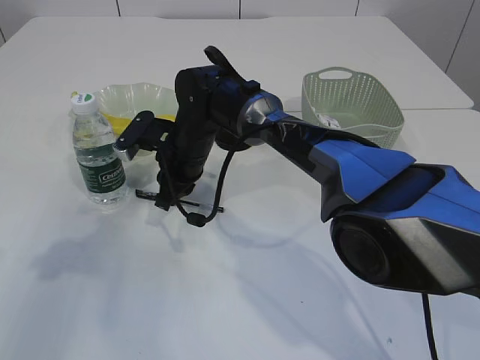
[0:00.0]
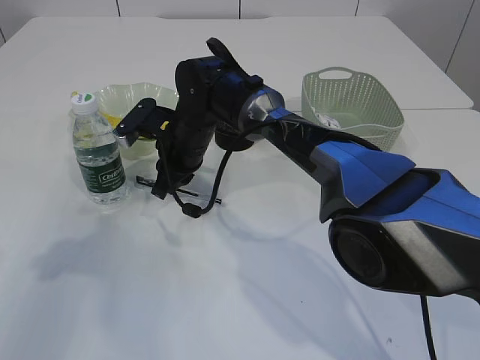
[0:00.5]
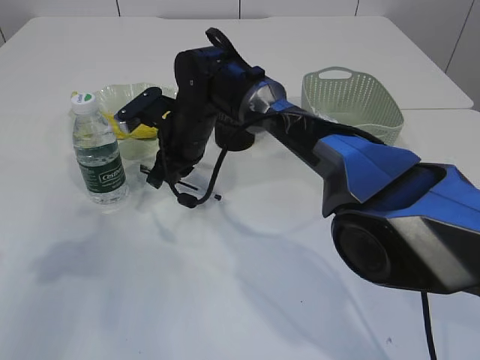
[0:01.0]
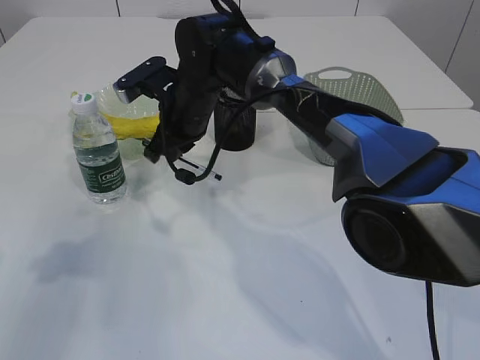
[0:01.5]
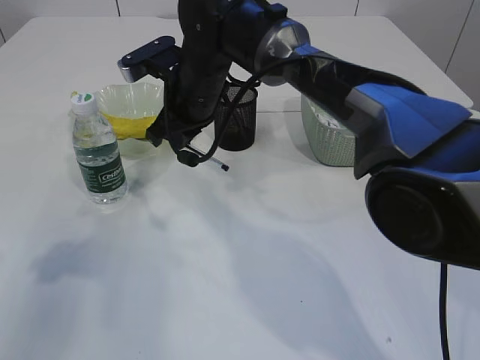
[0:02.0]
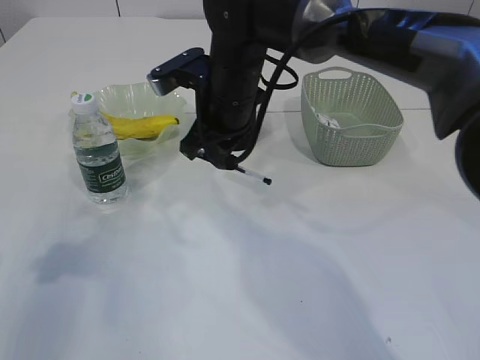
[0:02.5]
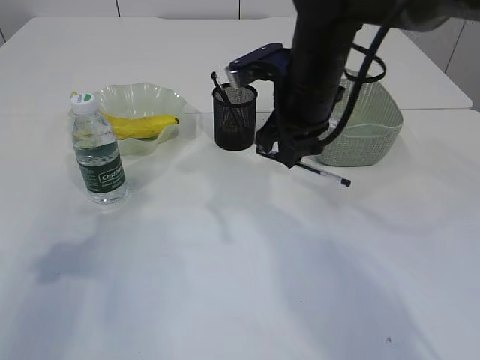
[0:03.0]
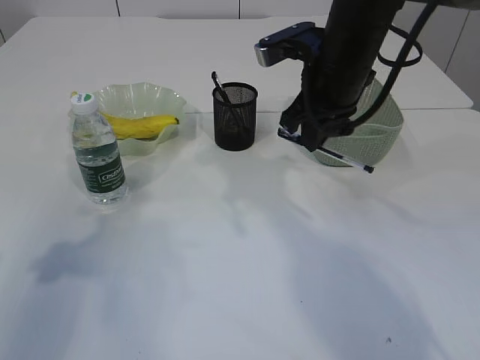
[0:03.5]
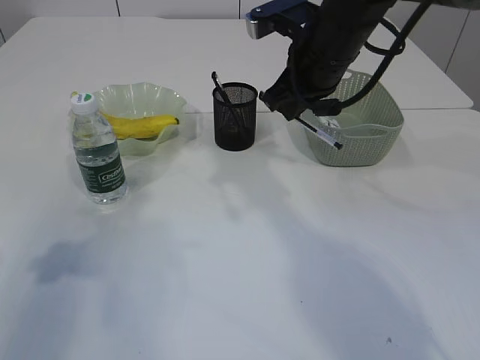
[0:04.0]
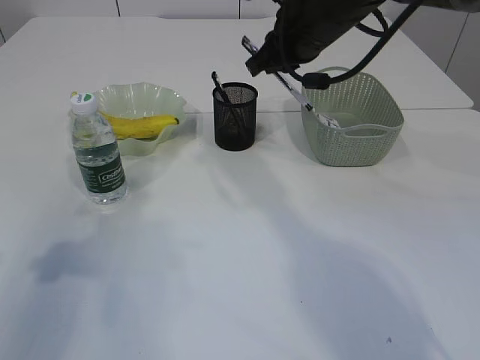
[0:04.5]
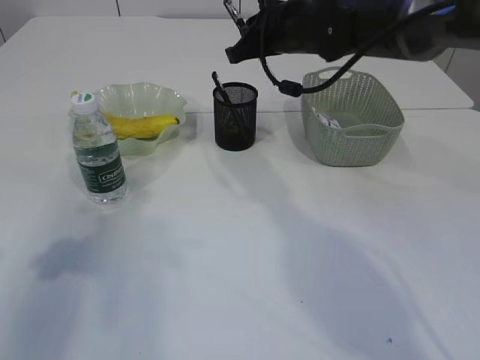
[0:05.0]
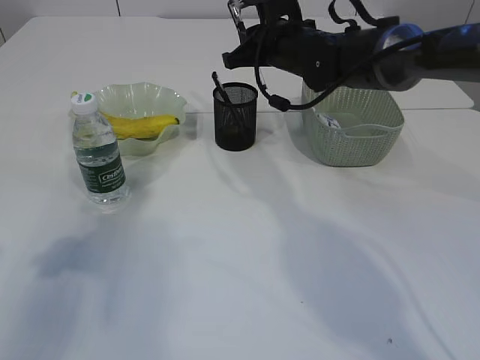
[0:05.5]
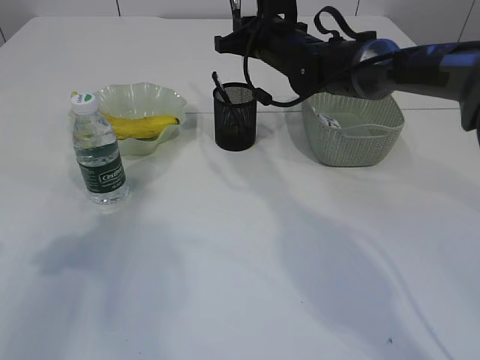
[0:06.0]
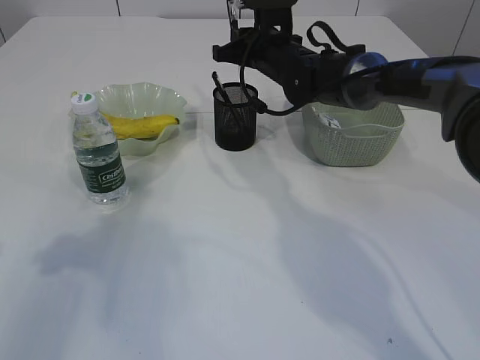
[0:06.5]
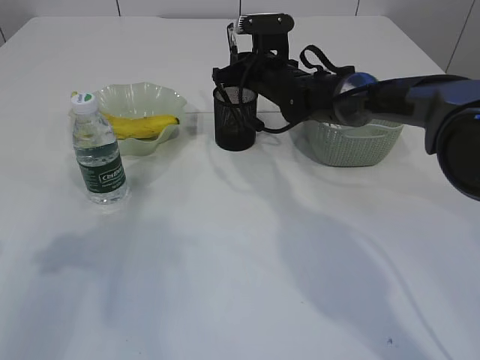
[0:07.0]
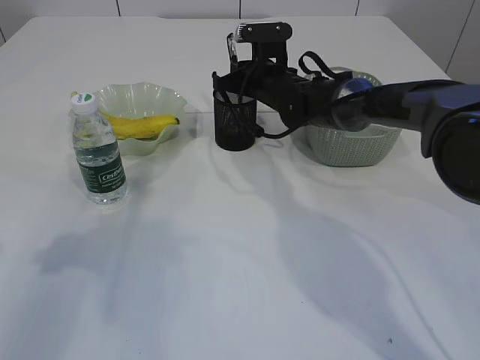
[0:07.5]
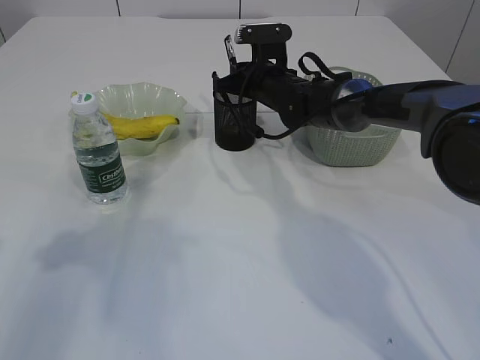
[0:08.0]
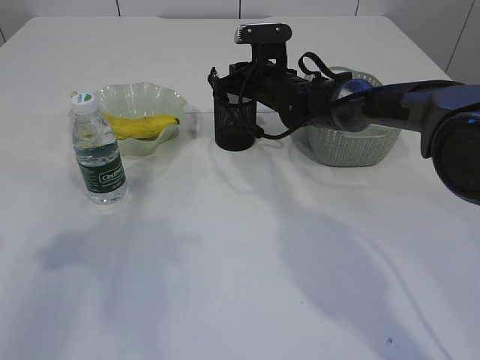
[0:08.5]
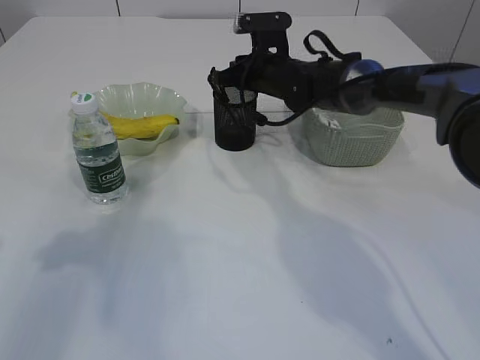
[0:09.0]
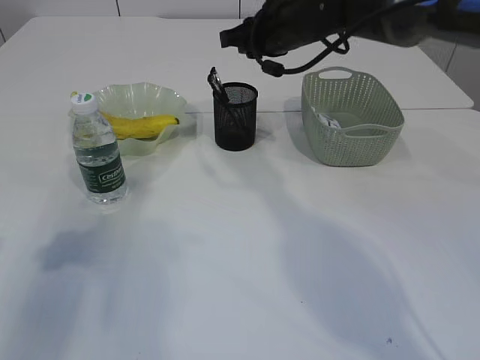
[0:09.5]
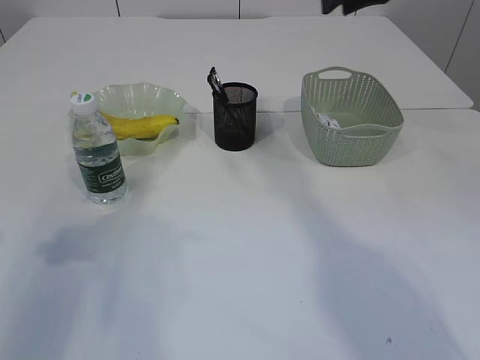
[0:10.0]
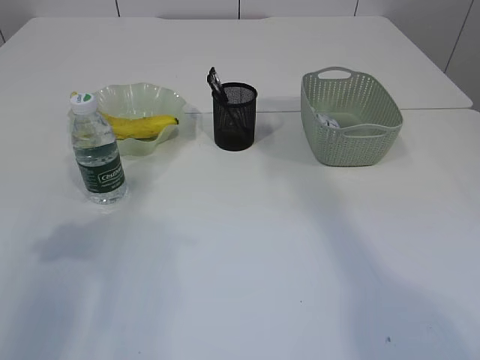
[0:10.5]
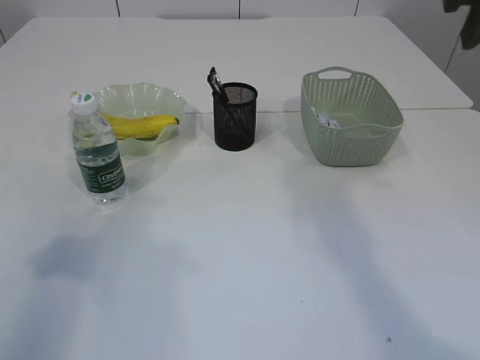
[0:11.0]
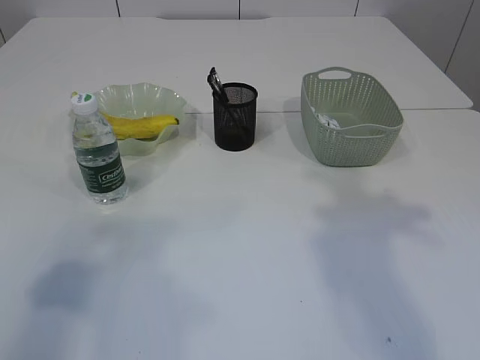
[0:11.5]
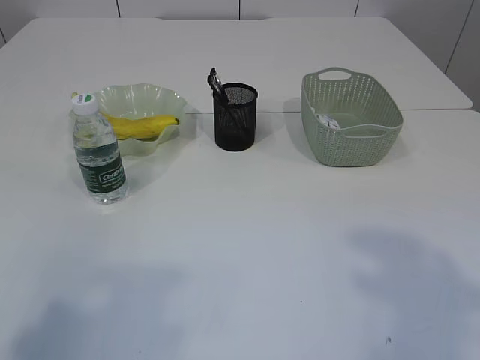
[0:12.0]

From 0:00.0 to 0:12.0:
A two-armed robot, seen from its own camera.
Step, from 0:01.5 to 0:09.0: Place the pen into the pen holder.
From 0:00.0 to 0:02.0: The right gripper is displaced upward by roughly 10 cm.
From 0:02.0 to 0:04.0: The right gripper goes some 15 cm to the right and upward.
From 0:04.0 to 0:06.0: The right gripper travels forward by about 10 cm.
From 0:06.0 to 0:08.0: The right gripper shifts approximately 5 cm downward.
From 0:08.0 to 0:10.0: The right gripper is displaced upward, backward and to the right by some 25 cm.
From 0:10.0 to 0:12.0: The left gripper goes some 20 cm backward and upward; the right gripper goes roughly 30 cm backward.

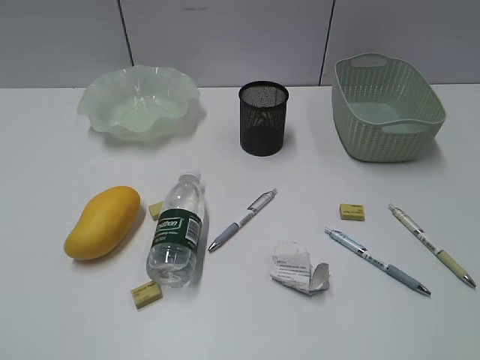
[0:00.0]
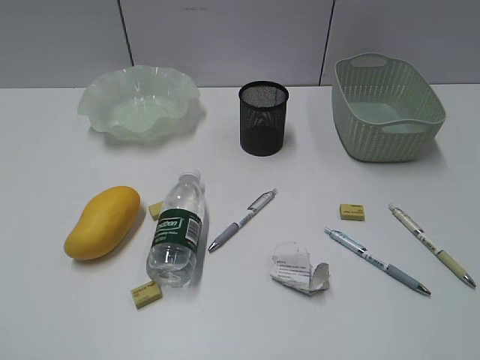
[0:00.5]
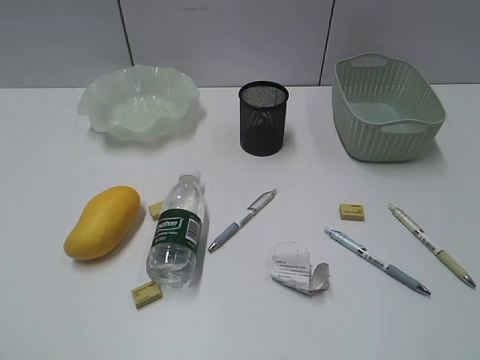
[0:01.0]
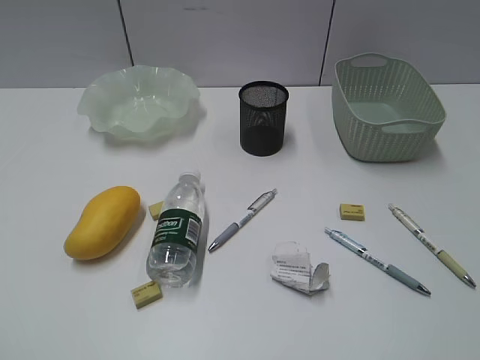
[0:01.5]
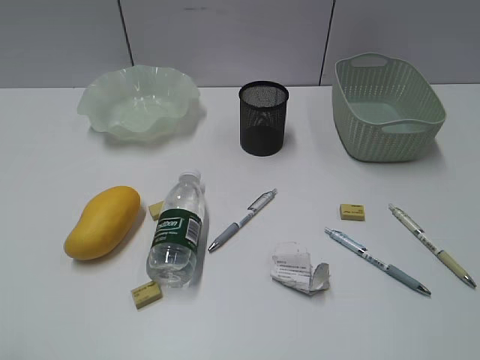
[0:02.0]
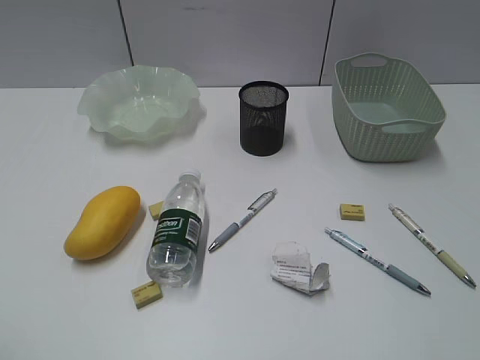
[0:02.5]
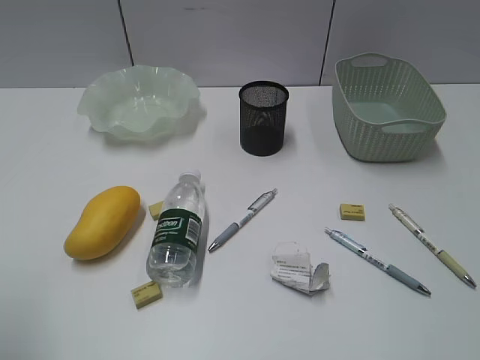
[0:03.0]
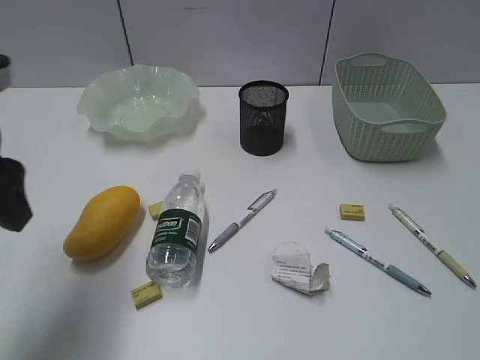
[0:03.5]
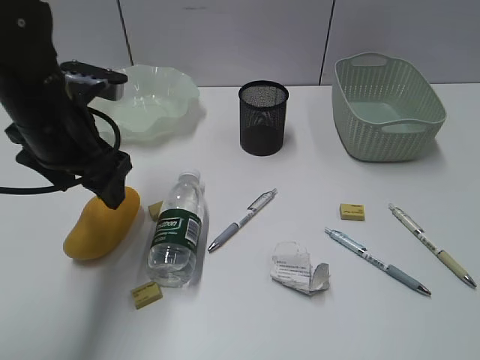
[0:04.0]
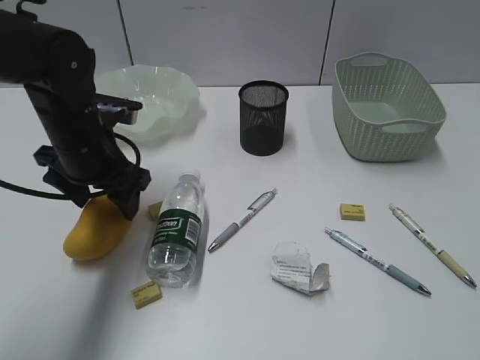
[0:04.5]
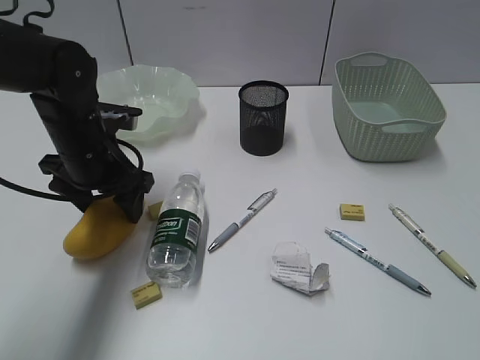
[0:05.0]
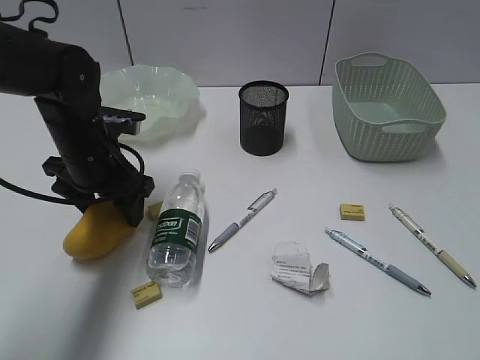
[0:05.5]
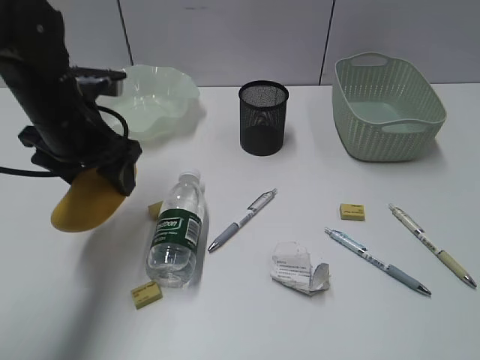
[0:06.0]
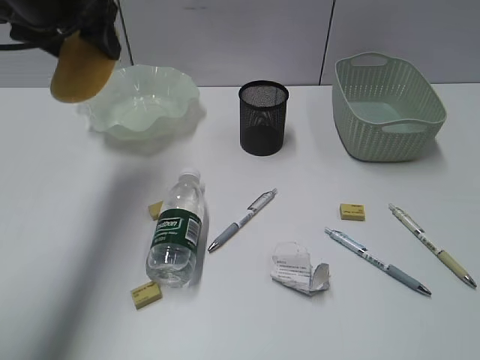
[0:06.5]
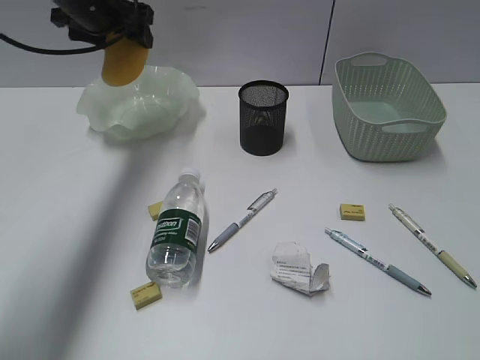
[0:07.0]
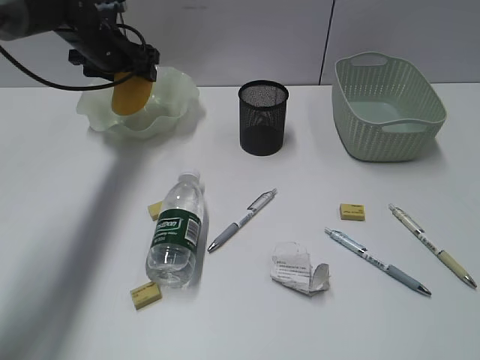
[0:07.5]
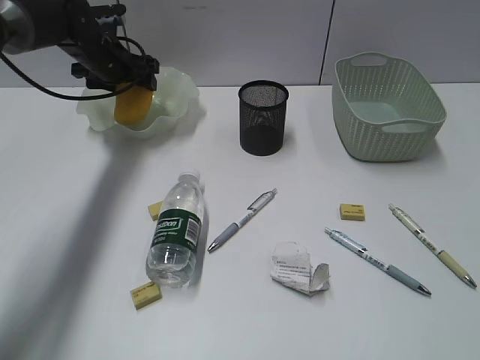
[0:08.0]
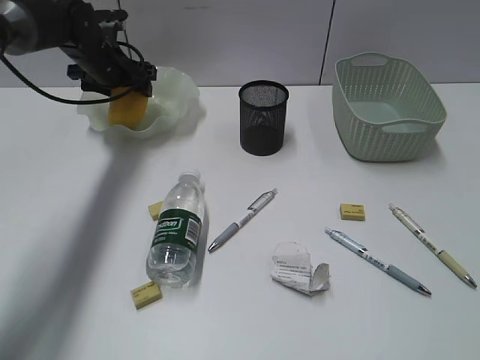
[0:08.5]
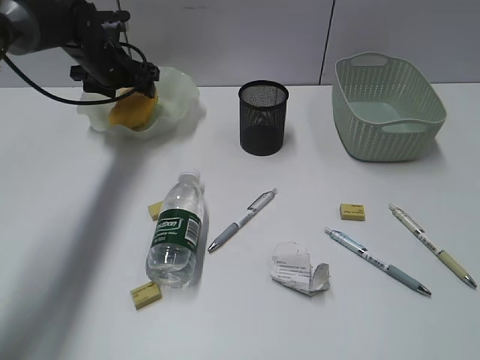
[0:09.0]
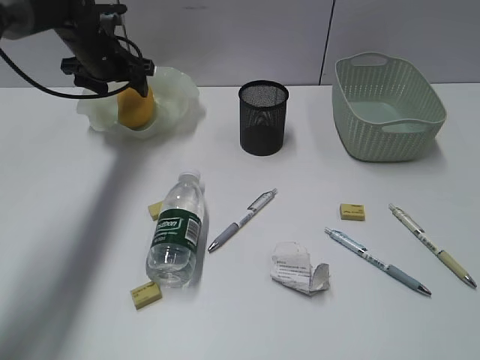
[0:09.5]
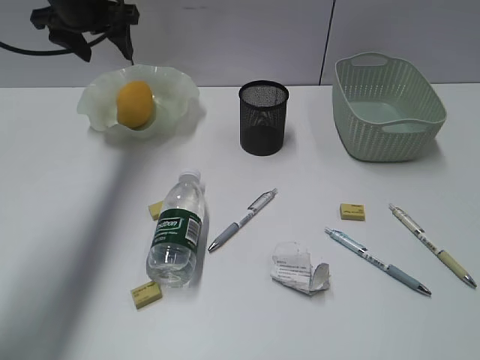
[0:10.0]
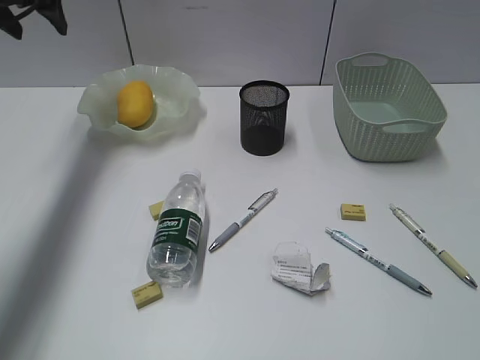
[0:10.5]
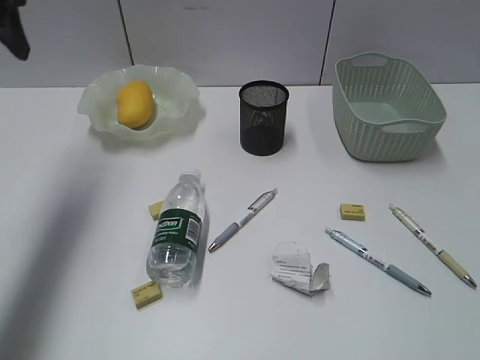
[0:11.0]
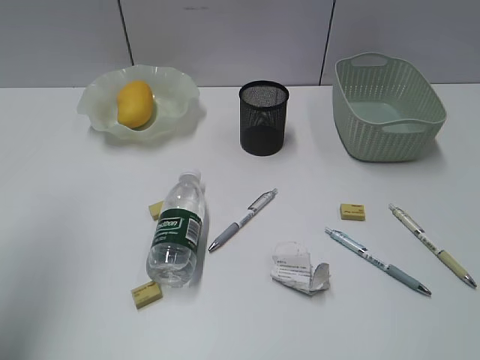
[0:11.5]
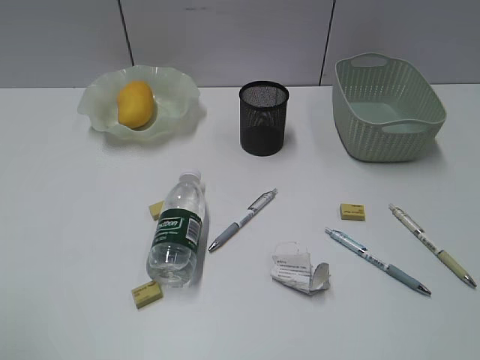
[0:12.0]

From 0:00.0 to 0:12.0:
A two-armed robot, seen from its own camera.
Step, from 0:03.5 to 0:05.5: Grasp the mango with left gripper.
Step, from 0:06.0 to 0:09.5: Place the mango in the plate with left gripper.
From 0:02.0 to 0:04.0: The left gripper moves forward and to the right, approximately 35 cm.
From 0:06.0 to 0:08.0: The left gripper travels forward by some 20 cm.
From 0:08.0 to 0:10.0: The left gripper goes some 10 cm upward.
From 0:10.0 to 0:12.0: The left gripper shifts some 40 cm backward.

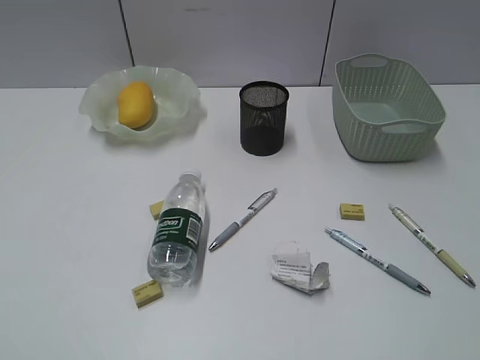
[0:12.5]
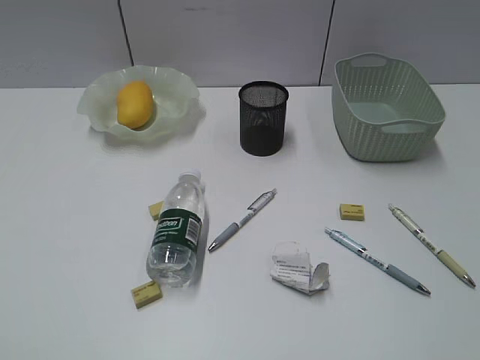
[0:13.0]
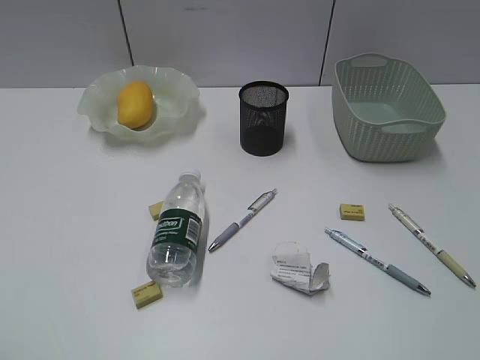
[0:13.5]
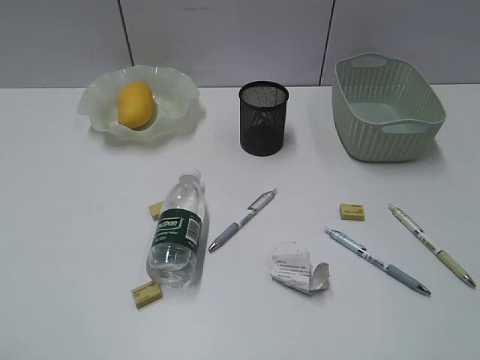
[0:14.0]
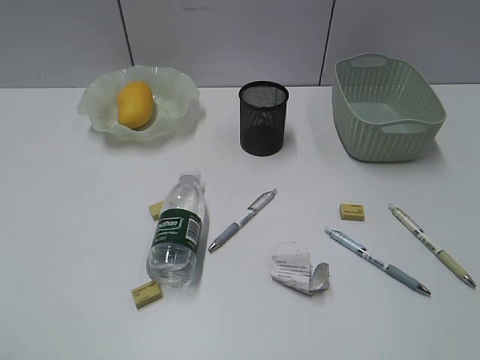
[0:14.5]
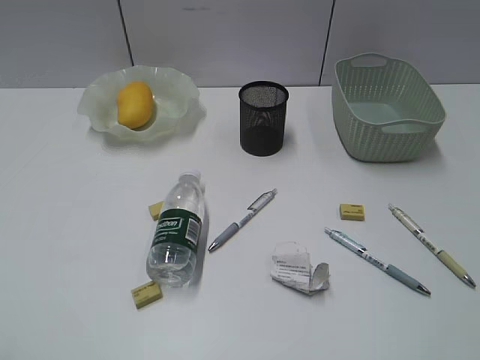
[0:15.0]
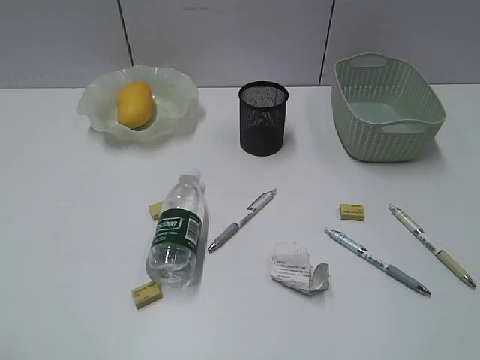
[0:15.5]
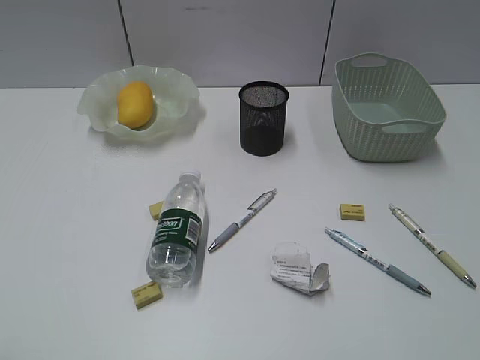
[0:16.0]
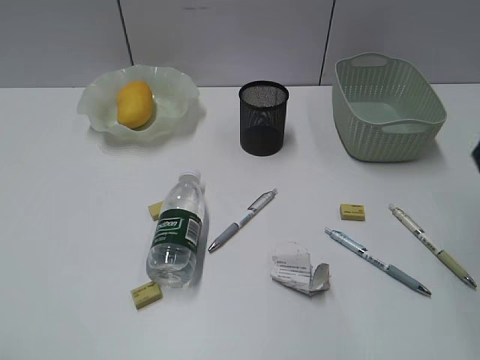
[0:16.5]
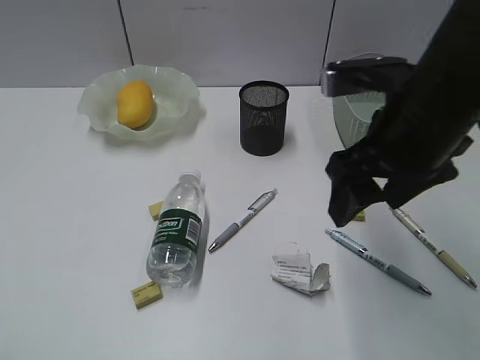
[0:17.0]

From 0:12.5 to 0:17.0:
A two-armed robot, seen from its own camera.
From 0:14.5 to 0:17.0: The right gripper is displaced forward and to the left by roughly 30 cm.
